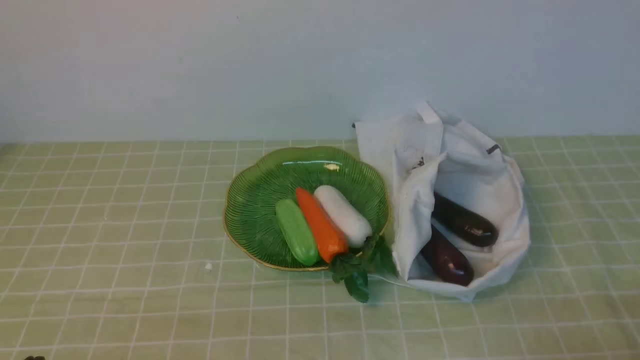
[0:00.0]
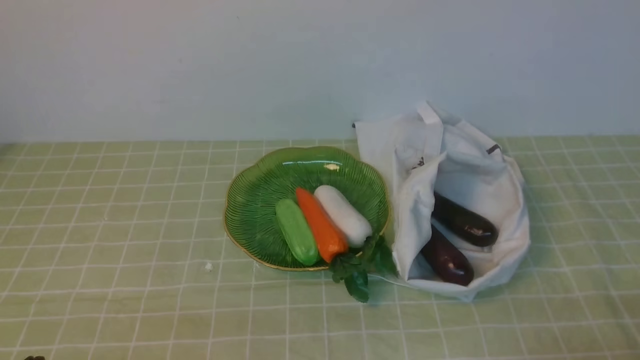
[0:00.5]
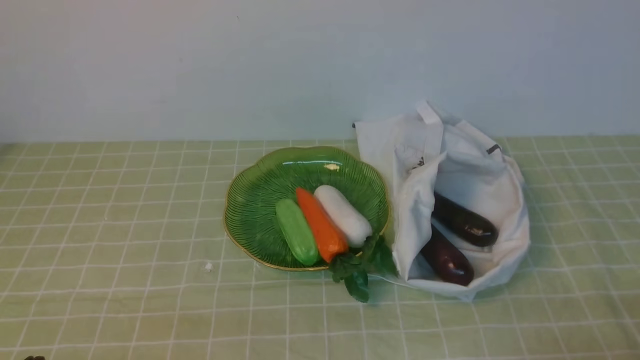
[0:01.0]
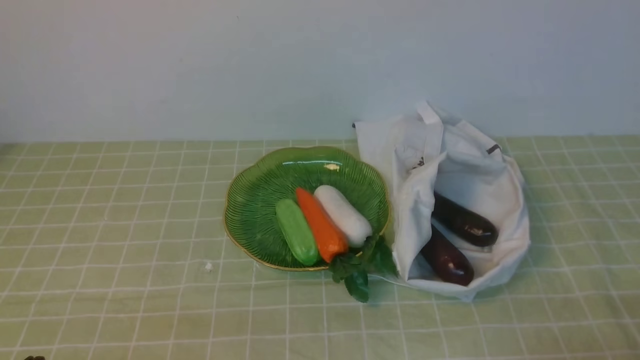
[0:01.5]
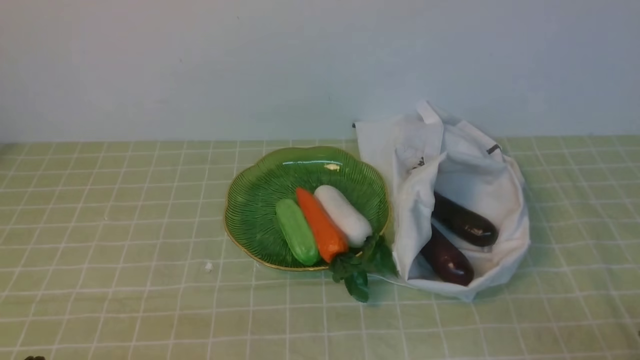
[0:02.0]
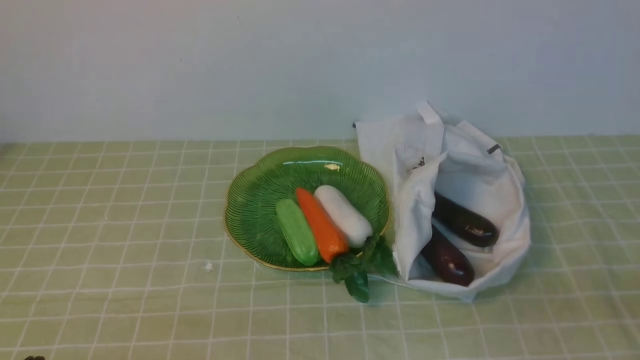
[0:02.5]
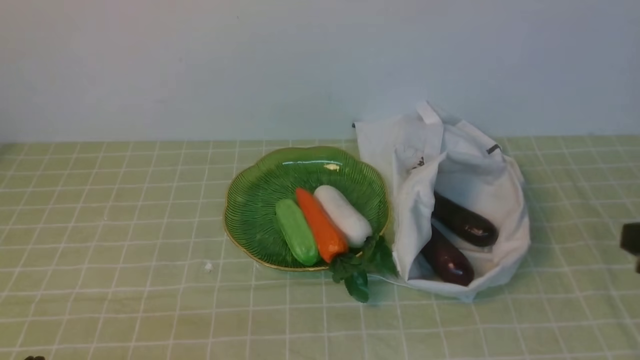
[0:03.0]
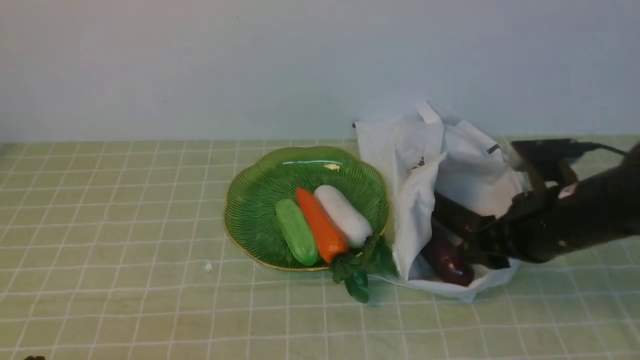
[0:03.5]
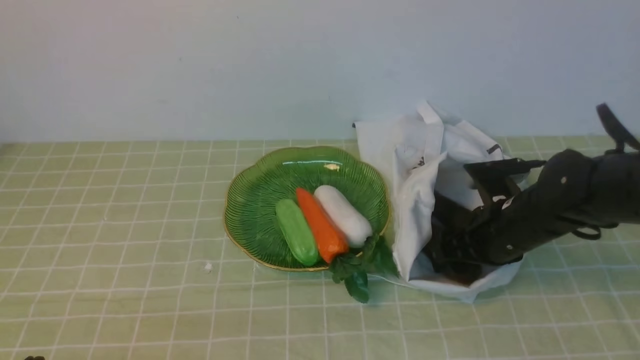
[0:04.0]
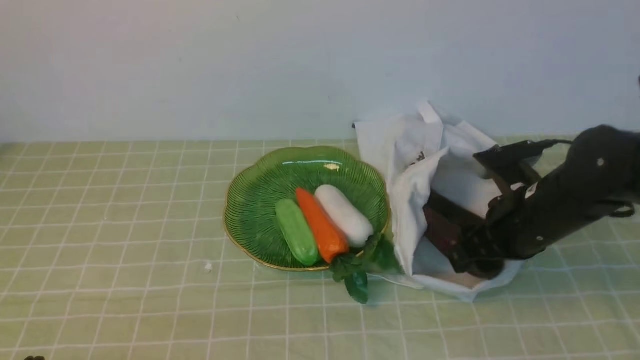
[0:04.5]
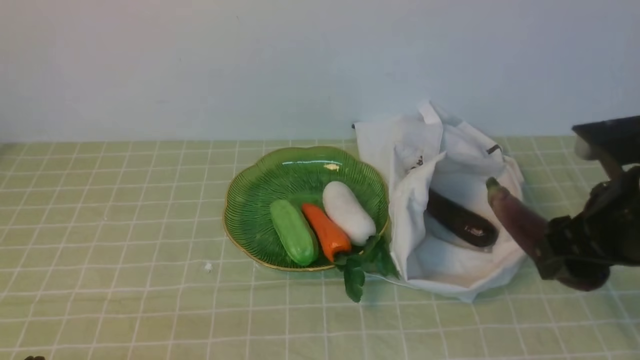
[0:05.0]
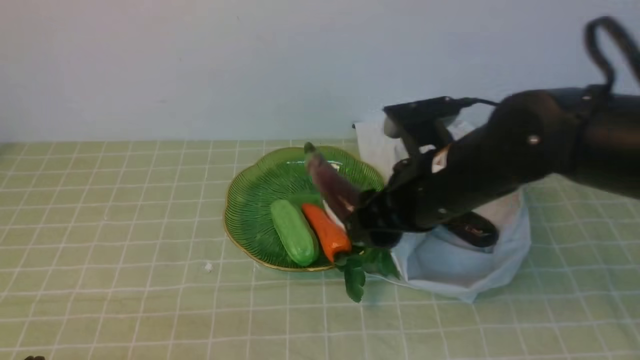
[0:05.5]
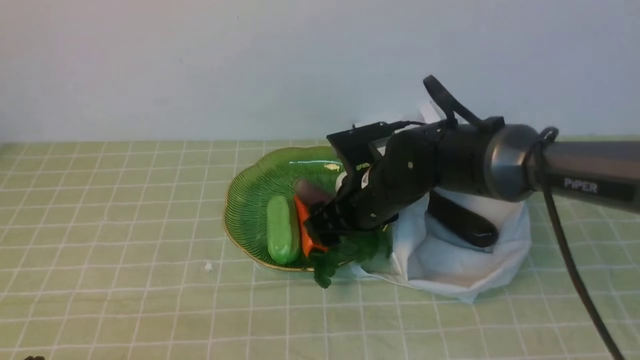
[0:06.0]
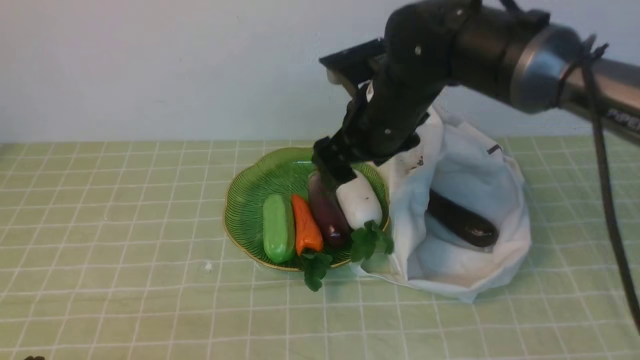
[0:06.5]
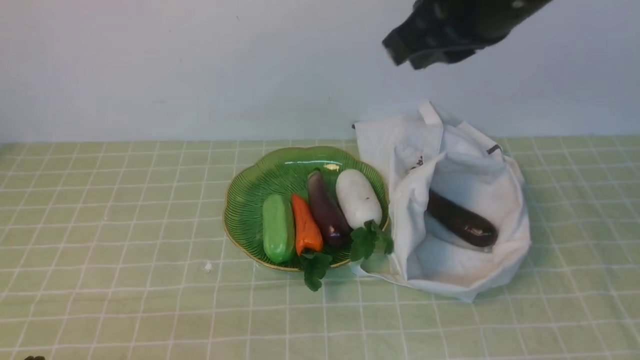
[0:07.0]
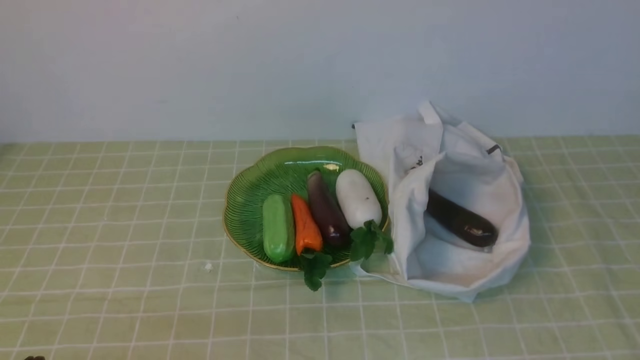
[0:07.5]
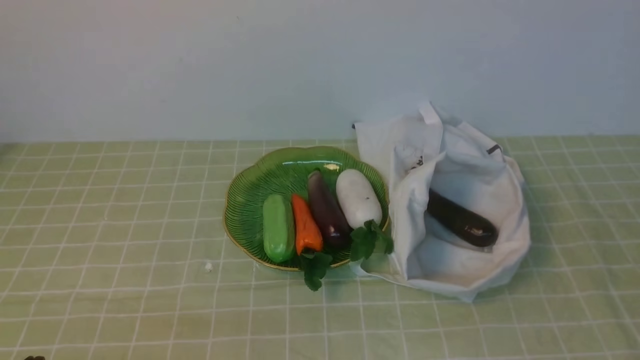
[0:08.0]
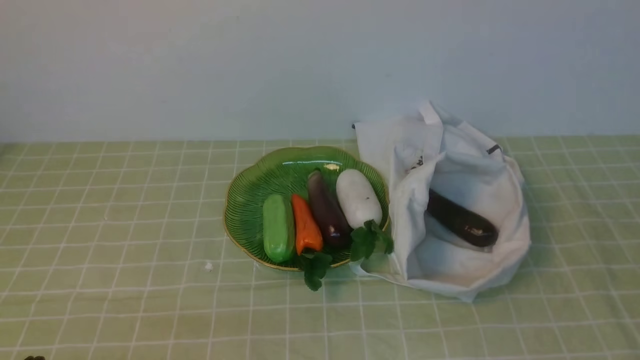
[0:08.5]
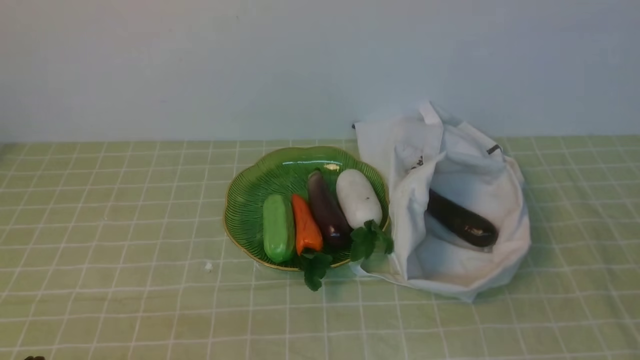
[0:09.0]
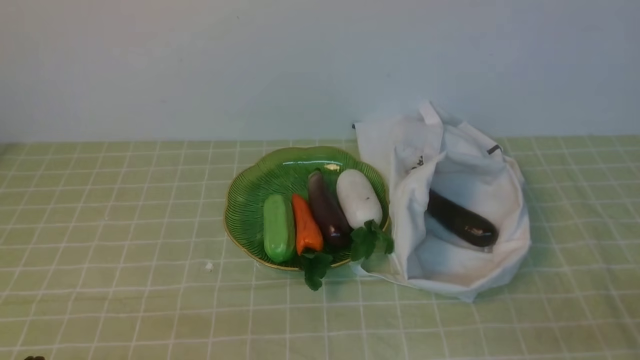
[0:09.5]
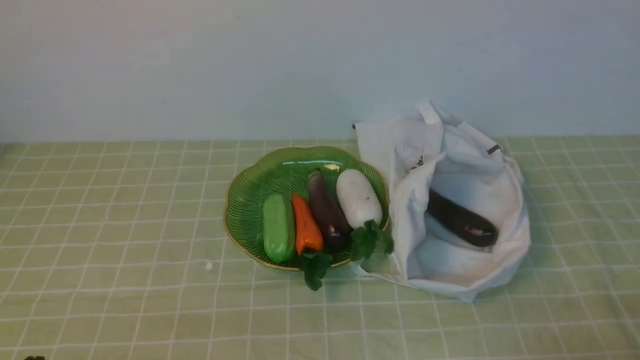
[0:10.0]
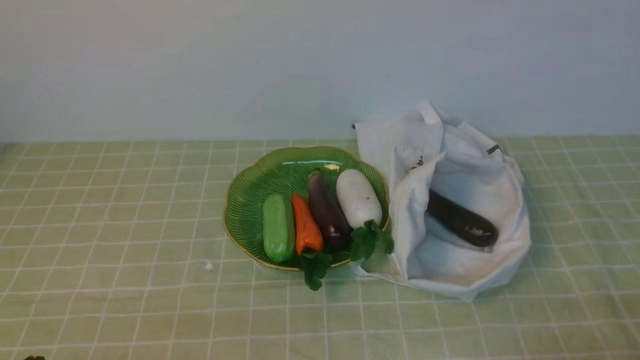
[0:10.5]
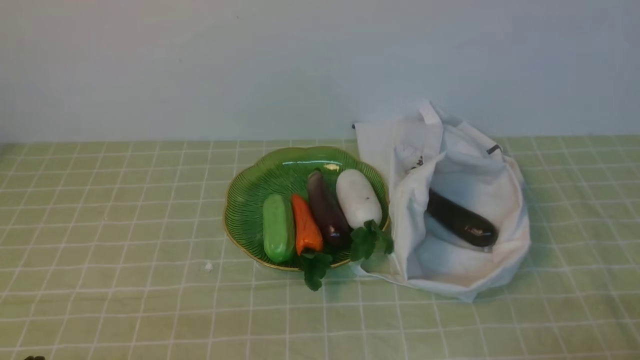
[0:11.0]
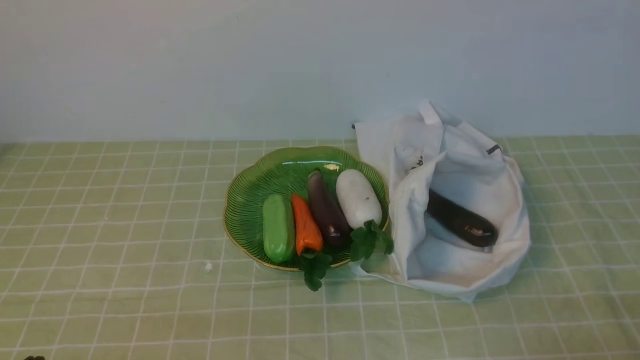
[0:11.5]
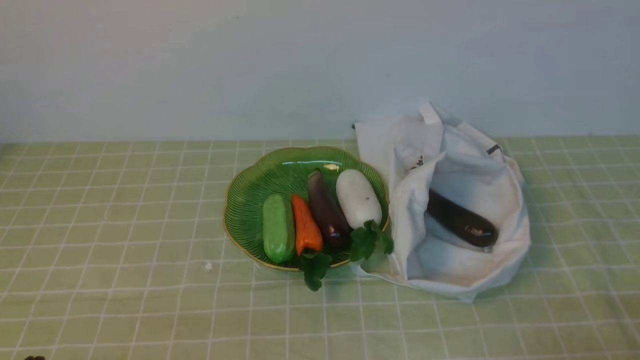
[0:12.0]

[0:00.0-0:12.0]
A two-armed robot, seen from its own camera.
Task of the whole recording: take vegetables from bag on green coffee tablecloth place on plate.
Step, 0:00.0 to 0:04.0: Grasp the eggplant with right gripper.
Step, 0:04.5 to 0:06.0: Place the eggplant on the plate with right gripper.
0:02.0 to 0:04.0: The right gripper shifts some 25 cm forward, and opens its fingers.
0:04.0 to 0:06.0: The right gripper heads to the left, covering roughly 15 cm.
0:06.0 to 0:08.0: The right gripper goes roughly 40 cm backward, to the right and upward, and closes up.
0:10.0 to 0:12.0: Both grippers stay about where they are.
